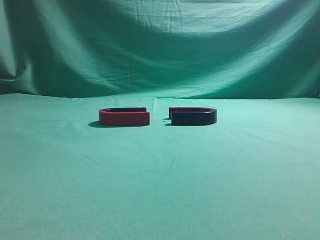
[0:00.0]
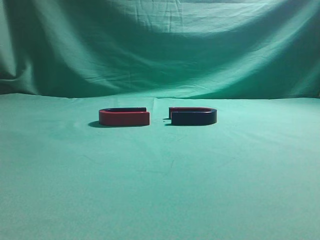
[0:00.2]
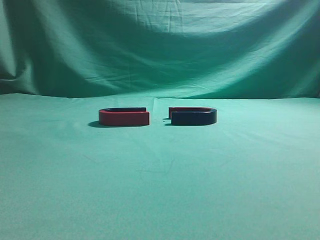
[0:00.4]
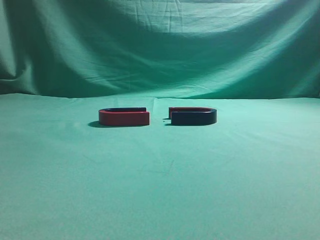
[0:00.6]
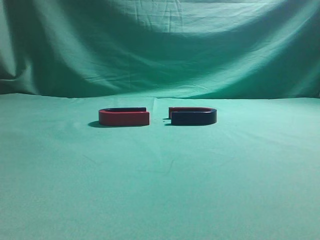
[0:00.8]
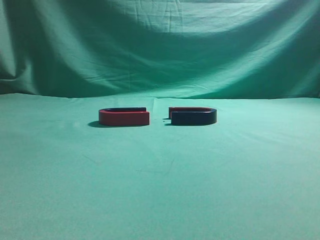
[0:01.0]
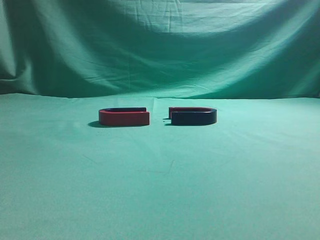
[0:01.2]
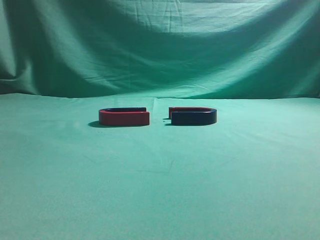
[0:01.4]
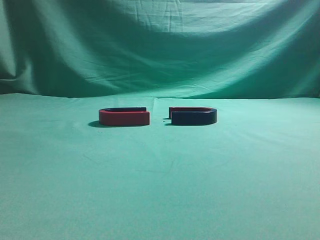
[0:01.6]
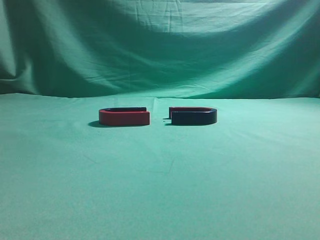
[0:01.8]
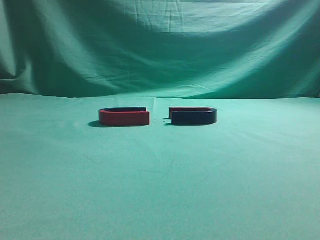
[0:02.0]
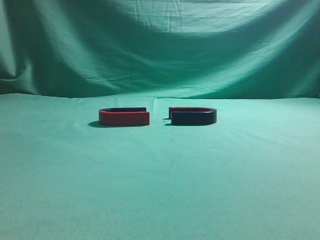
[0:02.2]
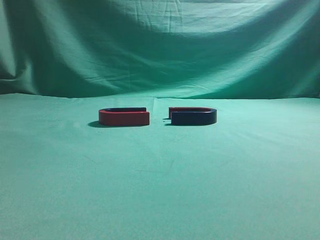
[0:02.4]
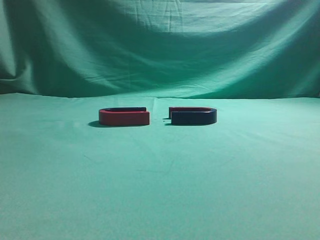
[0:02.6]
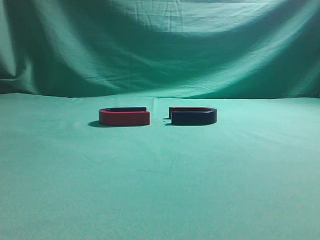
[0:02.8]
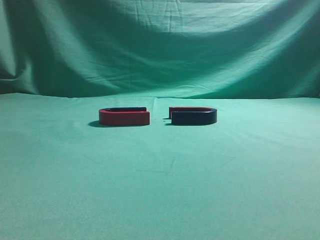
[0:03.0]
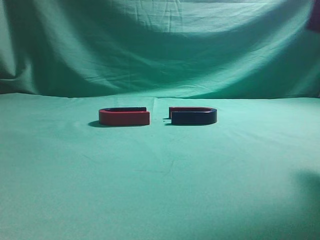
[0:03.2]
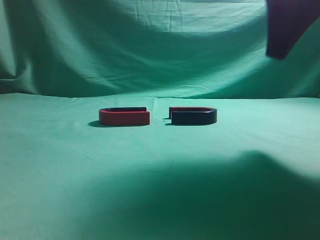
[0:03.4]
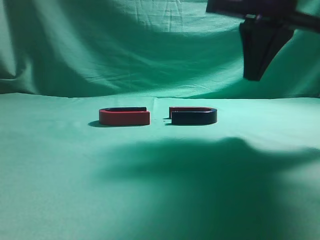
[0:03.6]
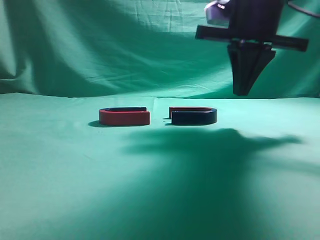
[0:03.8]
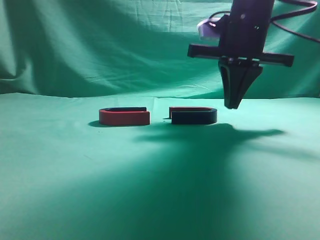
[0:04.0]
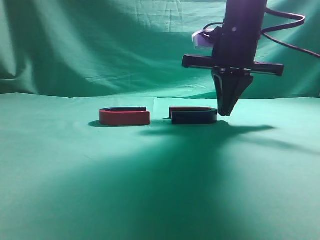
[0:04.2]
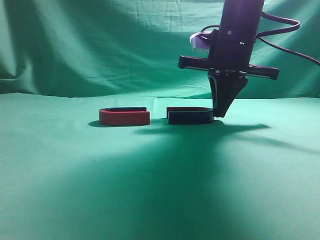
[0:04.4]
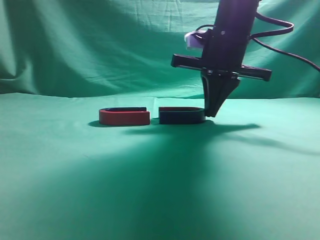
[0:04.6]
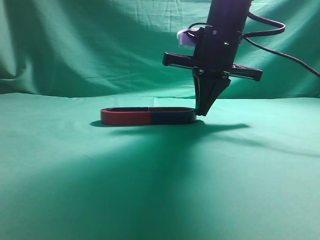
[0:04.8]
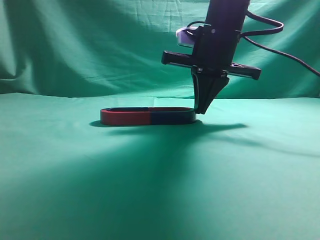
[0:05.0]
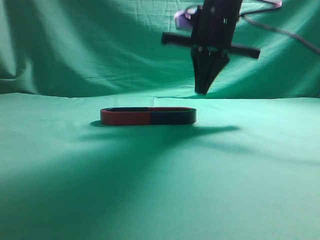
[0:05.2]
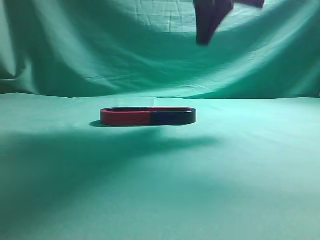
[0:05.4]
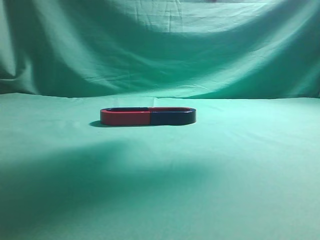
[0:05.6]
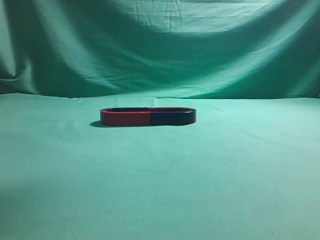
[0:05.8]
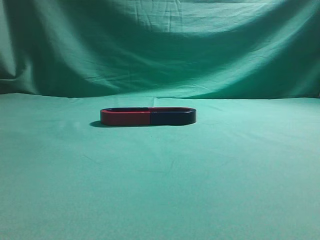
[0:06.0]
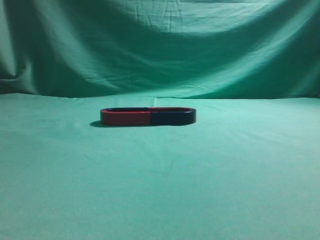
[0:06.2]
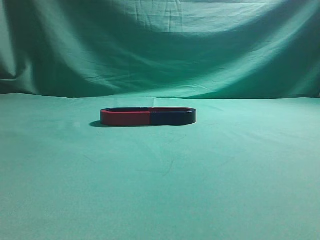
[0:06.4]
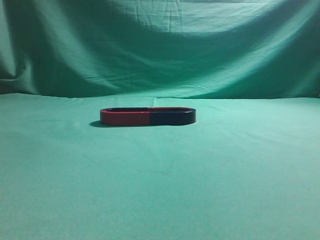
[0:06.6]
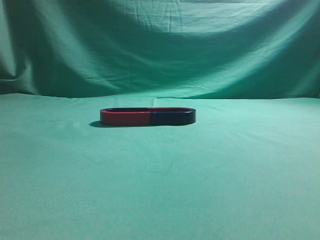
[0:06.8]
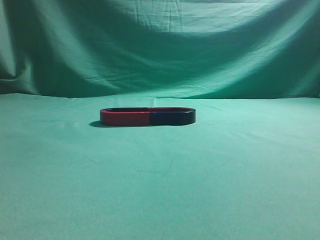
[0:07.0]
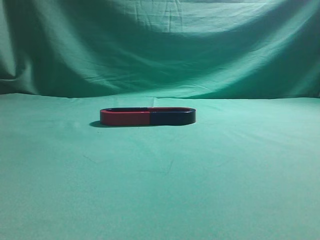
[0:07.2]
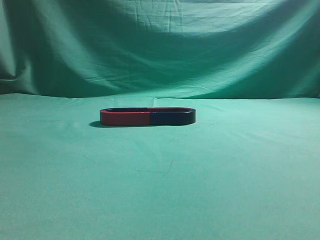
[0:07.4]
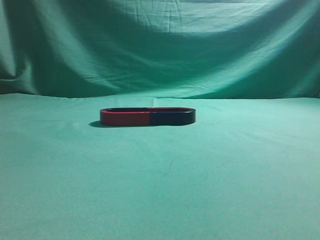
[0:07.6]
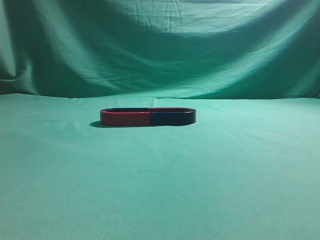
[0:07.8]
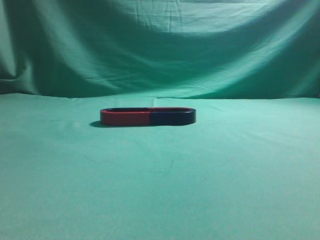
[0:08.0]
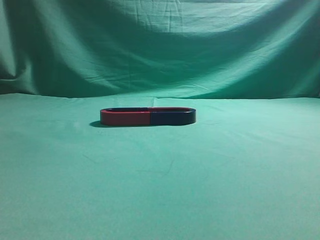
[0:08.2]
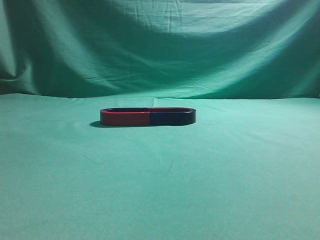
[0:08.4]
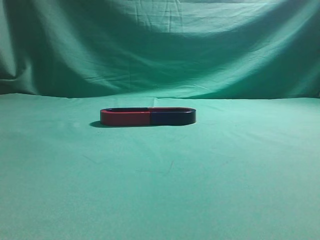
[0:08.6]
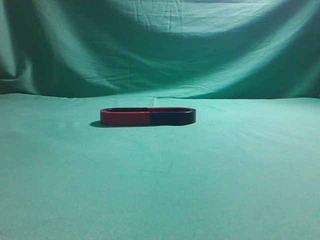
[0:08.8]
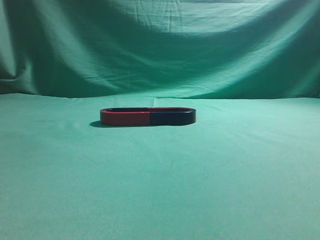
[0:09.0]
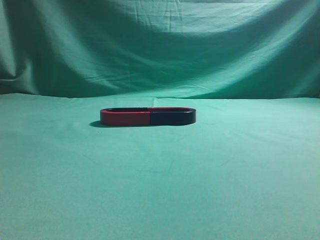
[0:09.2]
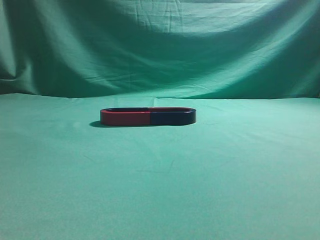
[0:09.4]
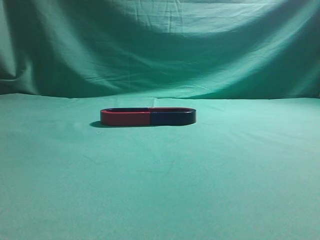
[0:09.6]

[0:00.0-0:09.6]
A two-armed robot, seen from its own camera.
Task of the whole recording: push the magnet on the table from its original position to another position.
Step, 0:00.0 to 0:05.0: Push the magnet on the right to connect the magnet on the left.
0:01.6 to 0:03.2: The right gripper shifts about 20 cm forward.
0:03.2 to 0:04.8: The right gripper goes approximately 20 cm forward, to the left and downward.
0:04.8 to 0:06.4: The right gripper goes roughly 35 cm upward, backward and to the right.
